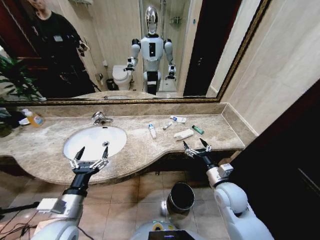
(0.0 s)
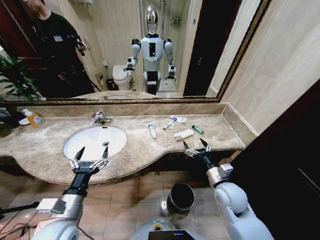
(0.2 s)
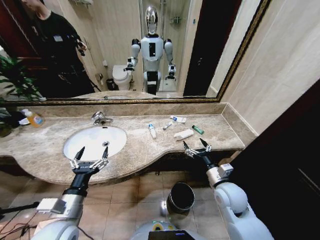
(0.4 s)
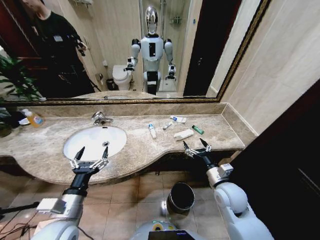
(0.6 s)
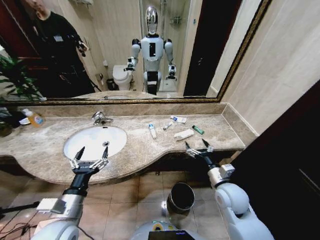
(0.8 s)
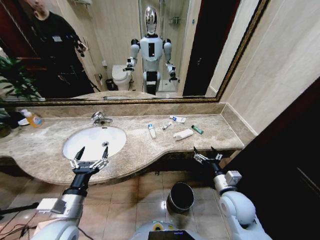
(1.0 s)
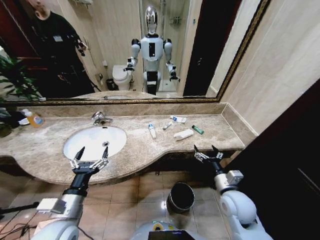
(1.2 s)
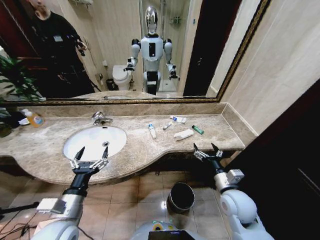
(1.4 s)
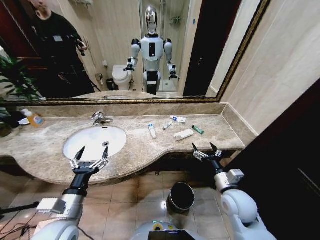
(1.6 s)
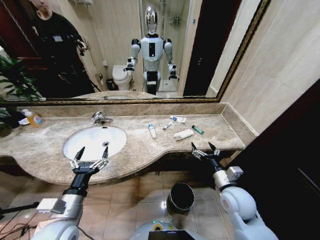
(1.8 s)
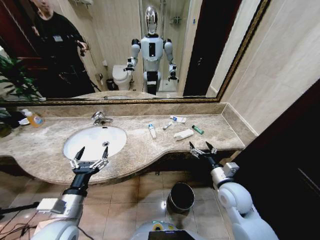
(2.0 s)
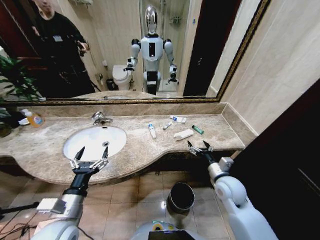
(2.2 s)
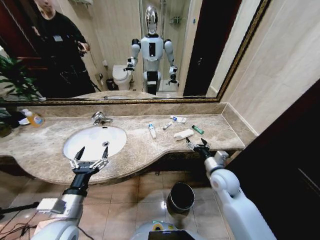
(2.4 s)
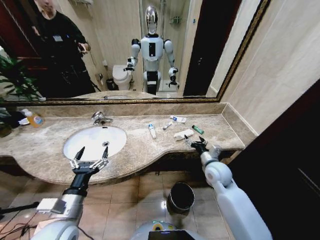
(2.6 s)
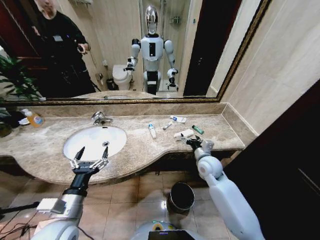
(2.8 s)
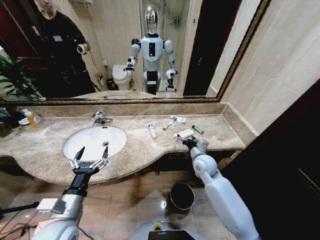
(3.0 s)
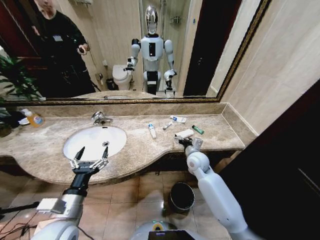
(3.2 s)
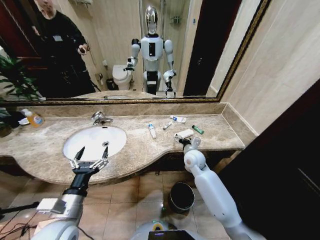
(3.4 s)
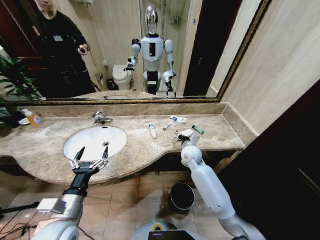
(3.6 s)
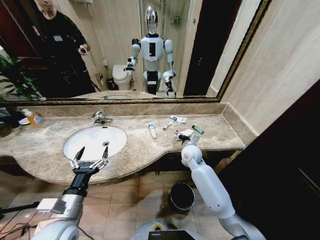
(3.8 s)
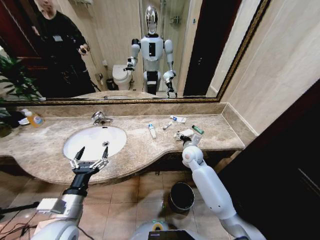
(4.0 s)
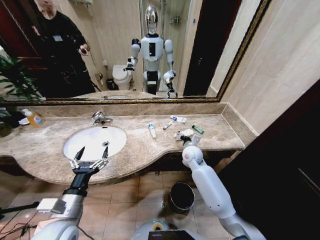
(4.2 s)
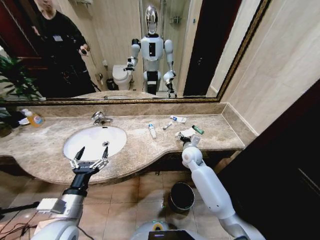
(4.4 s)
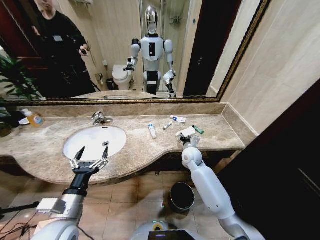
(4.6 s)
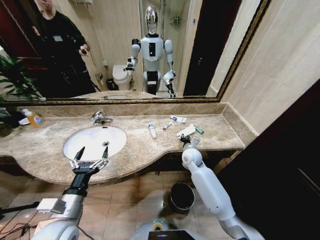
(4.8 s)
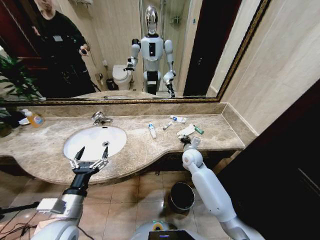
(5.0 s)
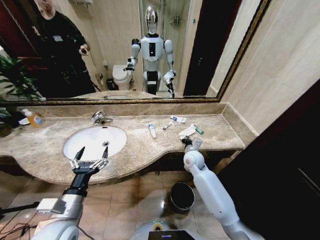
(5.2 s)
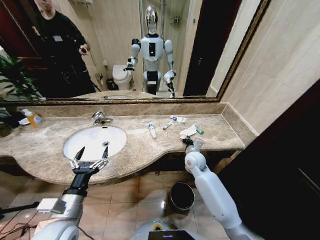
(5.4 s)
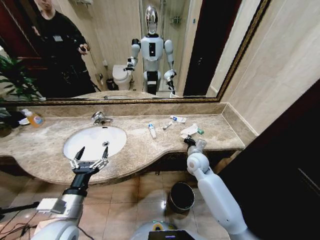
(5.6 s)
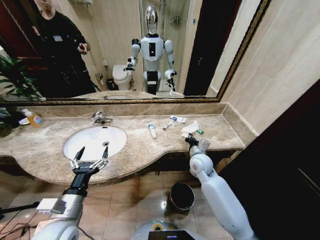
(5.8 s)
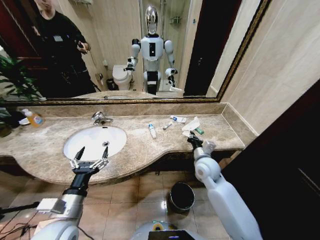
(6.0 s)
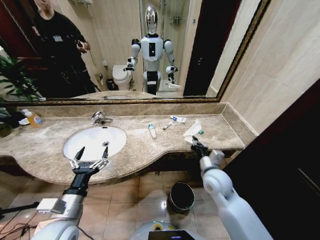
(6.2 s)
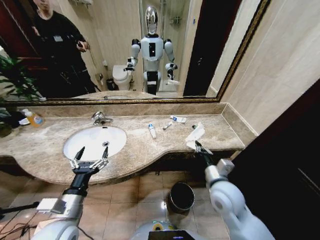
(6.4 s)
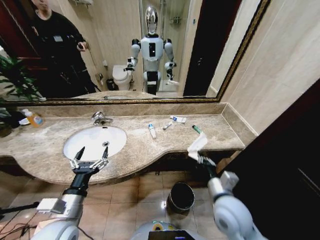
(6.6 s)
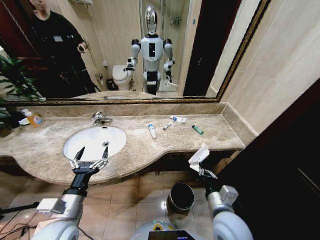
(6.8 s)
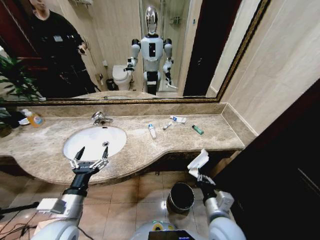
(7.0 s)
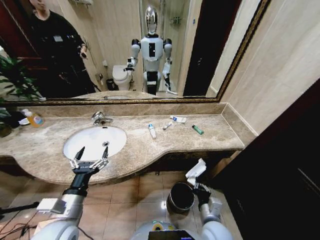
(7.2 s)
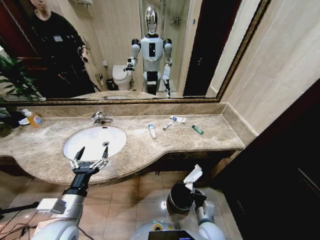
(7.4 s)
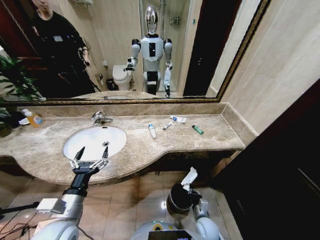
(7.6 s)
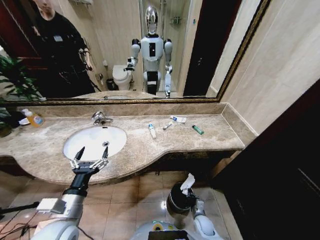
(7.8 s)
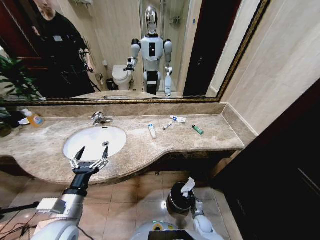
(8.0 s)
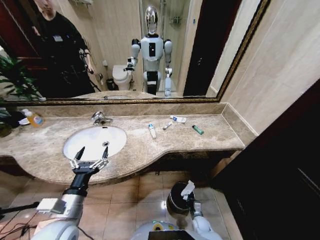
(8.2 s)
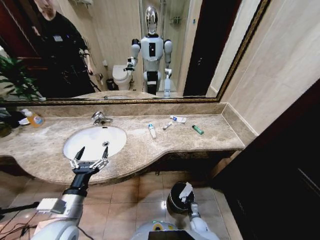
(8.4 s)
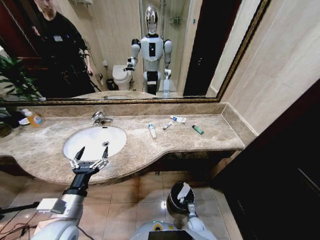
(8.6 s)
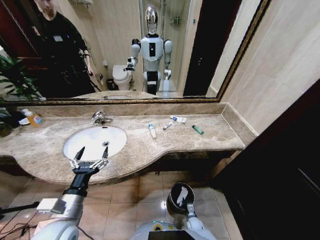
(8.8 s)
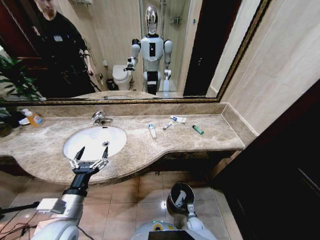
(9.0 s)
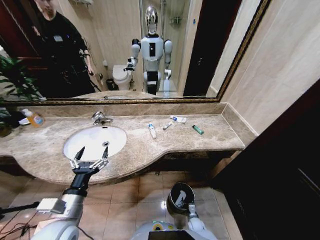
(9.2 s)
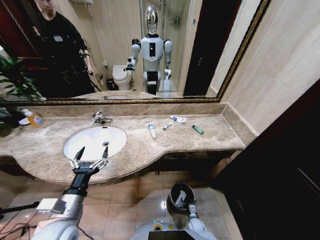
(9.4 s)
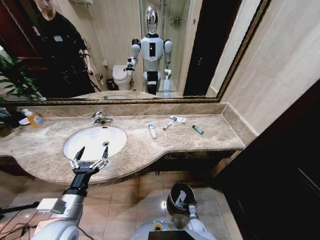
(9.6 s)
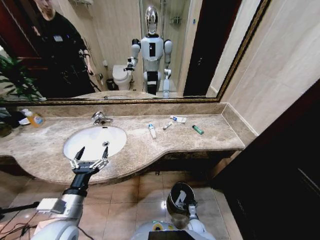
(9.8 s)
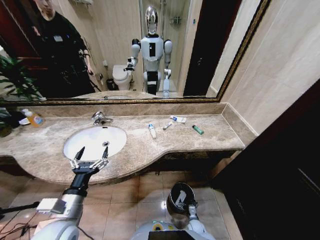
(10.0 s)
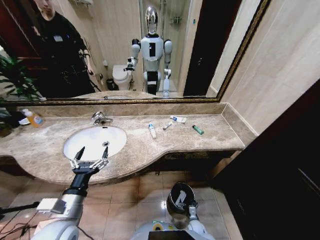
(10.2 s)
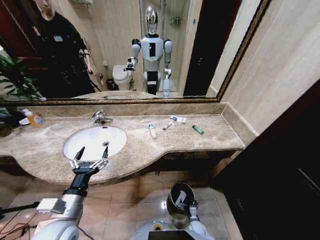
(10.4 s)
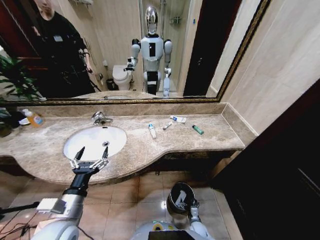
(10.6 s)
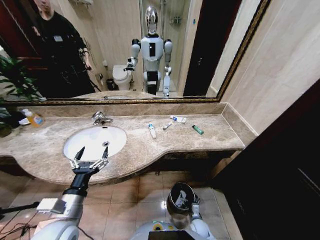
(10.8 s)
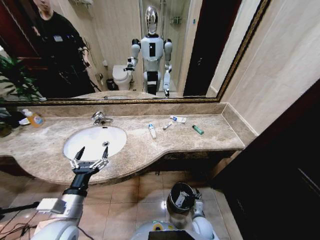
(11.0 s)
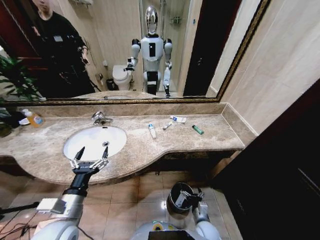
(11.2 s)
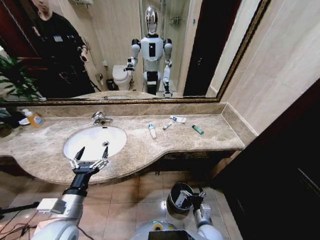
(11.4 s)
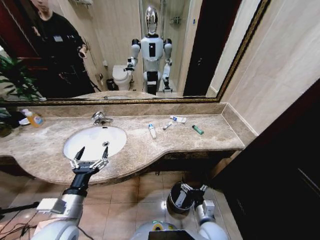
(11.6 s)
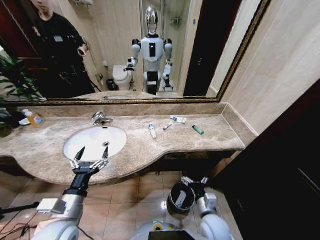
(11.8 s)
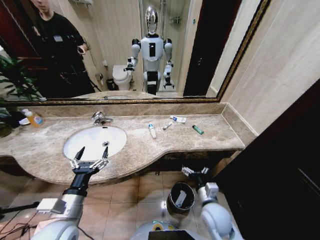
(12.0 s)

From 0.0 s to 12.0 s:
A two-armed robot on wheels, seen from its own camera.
Task of the whole recording: Pick up the trash from the sink and place it in the trash bin.
From 1.6 s to 3.0 s: The right gripper shifts roughly 15 cm forward.
From 3.0 s to 4.4 s: The right gripper goes roughly 5 cm forward.
From 4.4 s to 6.0 s: The right gripper is displaced backward by about 10 cm, and closes up.
From 6.0 s to 7.6 s: The right gripper shifts approximately 30 cm downward and backward.
From 7.6 s to 9.0 s: The right gripper moves downward, roughly 20 cm.
From 10.4 s to 12.0 s: The right gripper heads upward, covering roughly 35 cm.

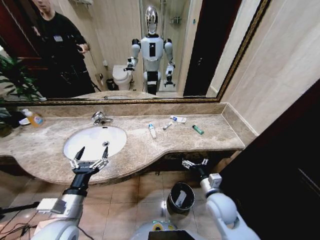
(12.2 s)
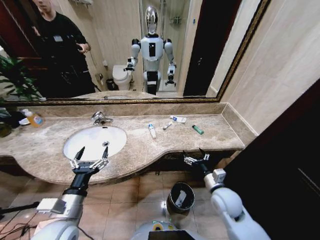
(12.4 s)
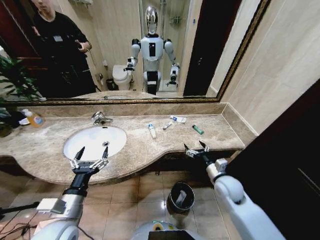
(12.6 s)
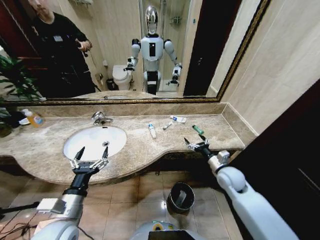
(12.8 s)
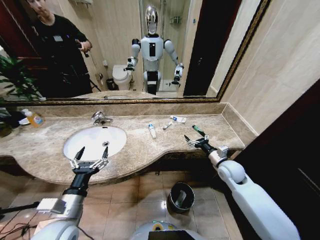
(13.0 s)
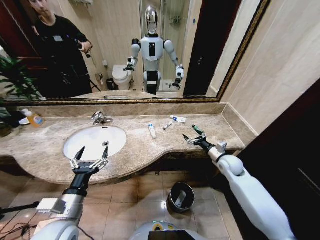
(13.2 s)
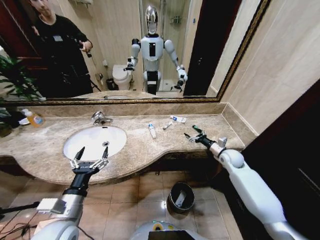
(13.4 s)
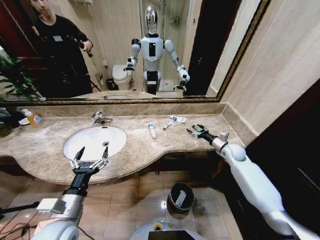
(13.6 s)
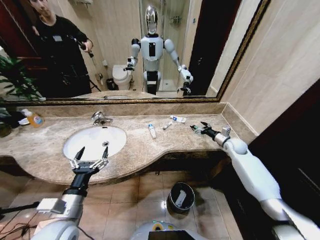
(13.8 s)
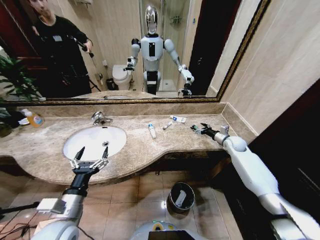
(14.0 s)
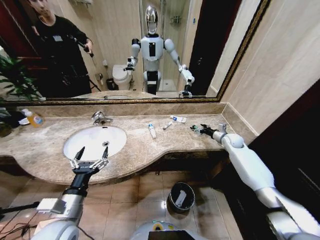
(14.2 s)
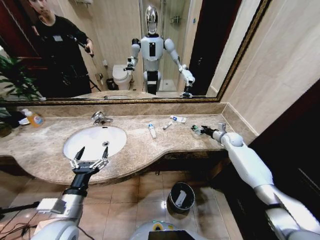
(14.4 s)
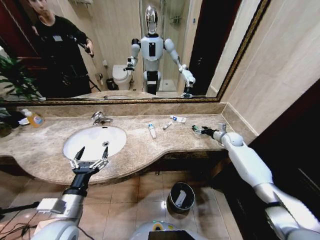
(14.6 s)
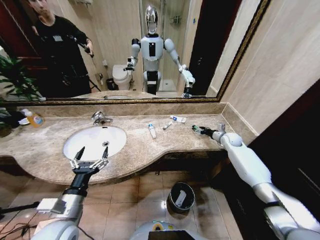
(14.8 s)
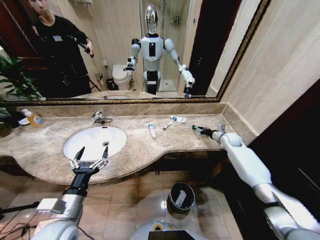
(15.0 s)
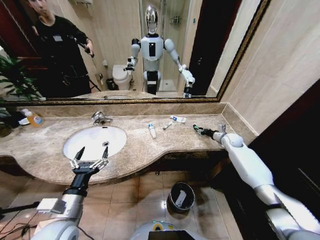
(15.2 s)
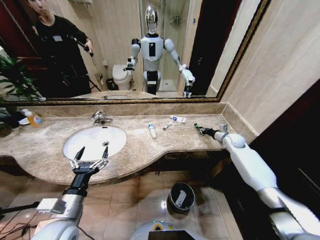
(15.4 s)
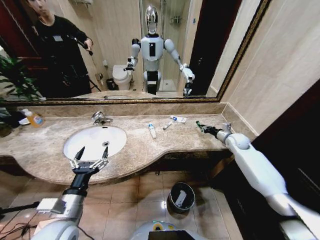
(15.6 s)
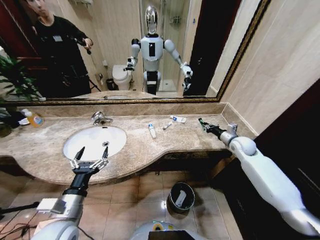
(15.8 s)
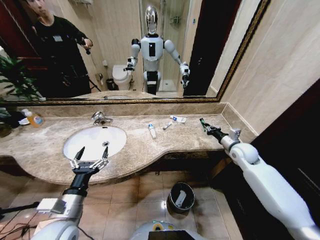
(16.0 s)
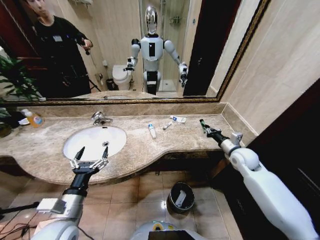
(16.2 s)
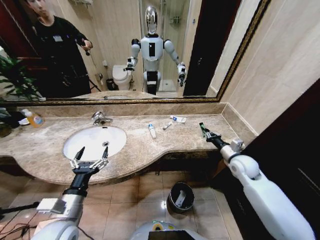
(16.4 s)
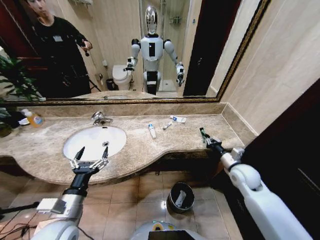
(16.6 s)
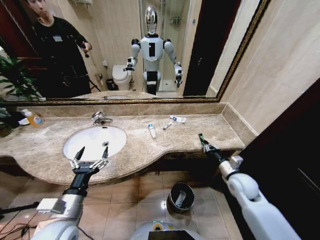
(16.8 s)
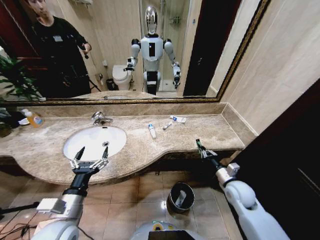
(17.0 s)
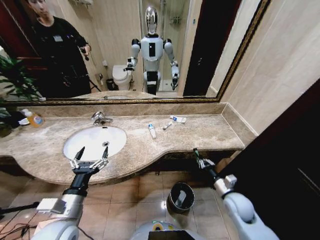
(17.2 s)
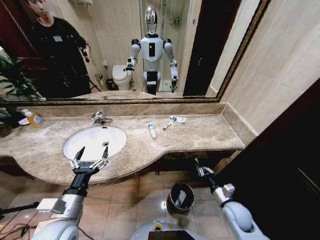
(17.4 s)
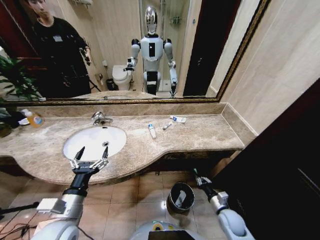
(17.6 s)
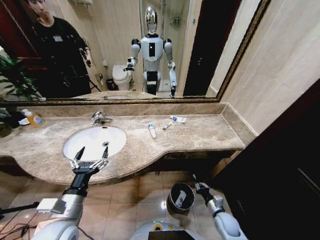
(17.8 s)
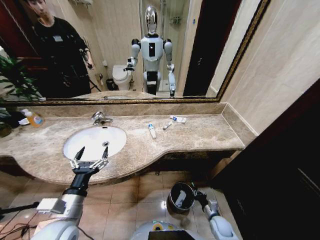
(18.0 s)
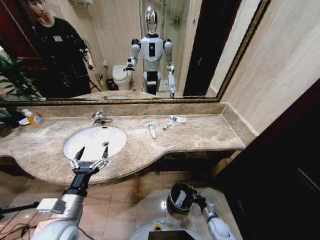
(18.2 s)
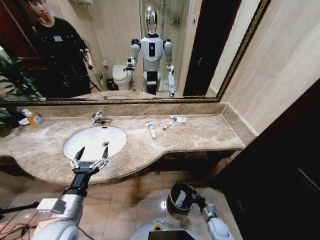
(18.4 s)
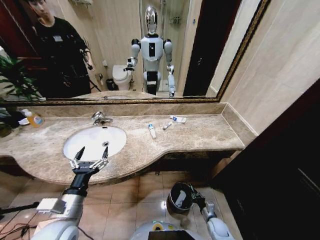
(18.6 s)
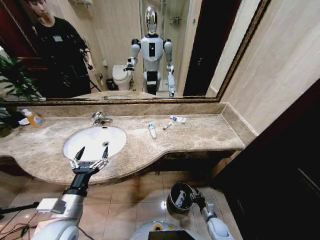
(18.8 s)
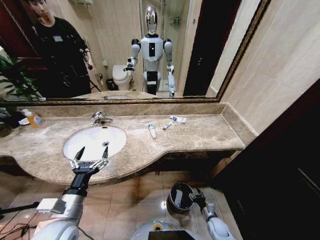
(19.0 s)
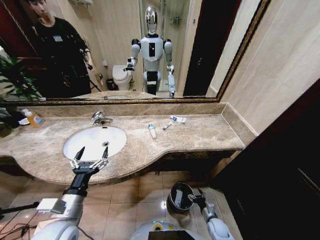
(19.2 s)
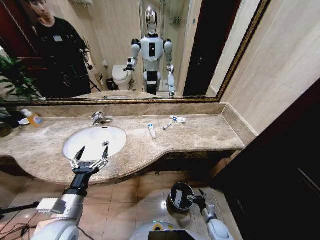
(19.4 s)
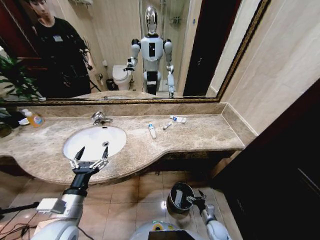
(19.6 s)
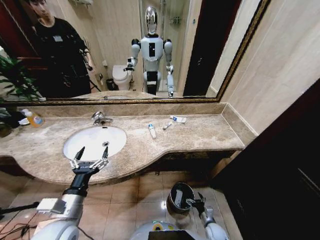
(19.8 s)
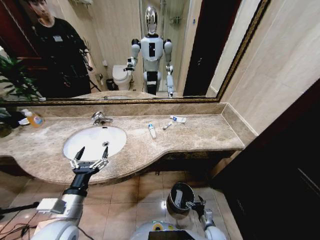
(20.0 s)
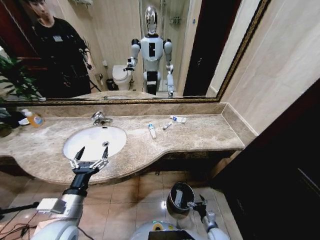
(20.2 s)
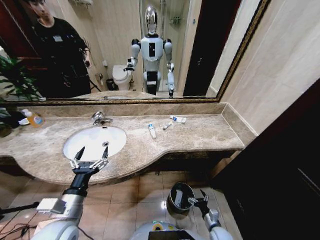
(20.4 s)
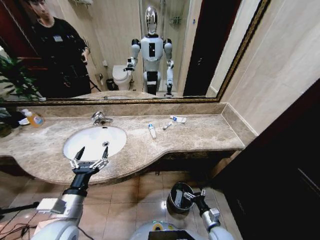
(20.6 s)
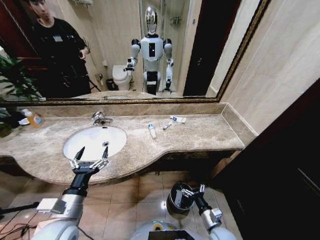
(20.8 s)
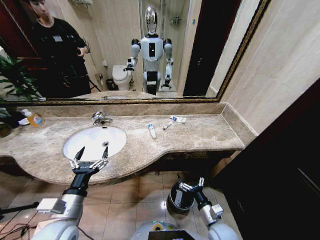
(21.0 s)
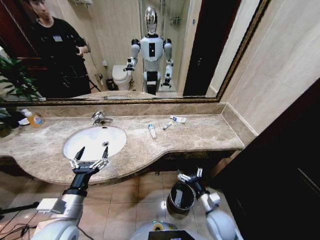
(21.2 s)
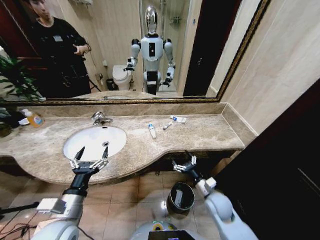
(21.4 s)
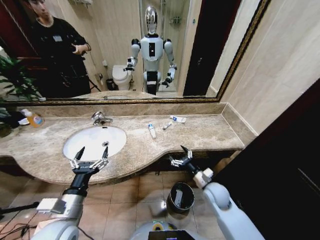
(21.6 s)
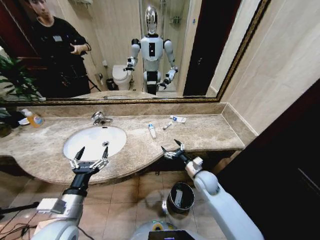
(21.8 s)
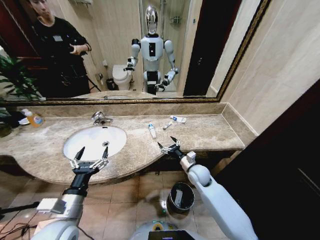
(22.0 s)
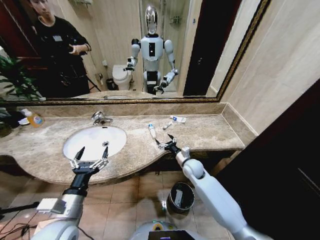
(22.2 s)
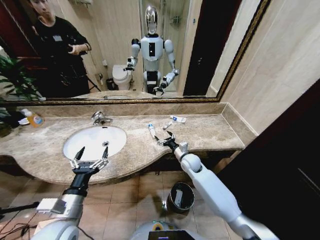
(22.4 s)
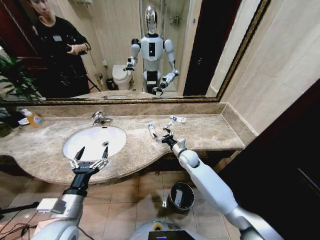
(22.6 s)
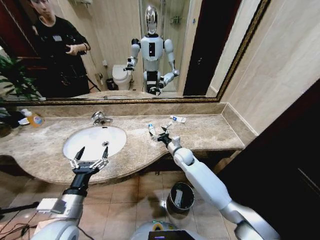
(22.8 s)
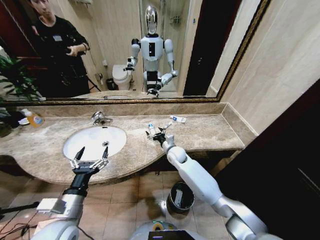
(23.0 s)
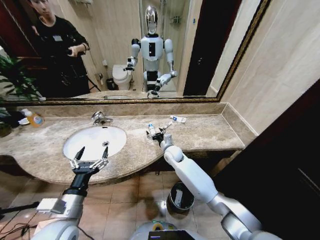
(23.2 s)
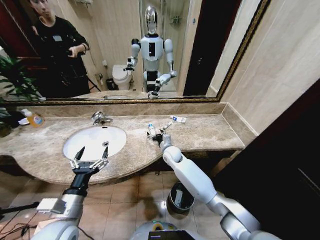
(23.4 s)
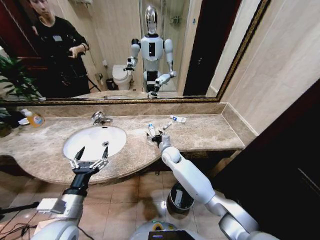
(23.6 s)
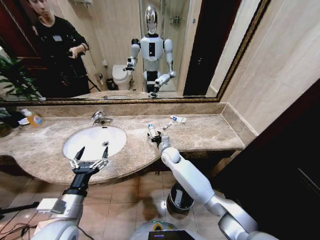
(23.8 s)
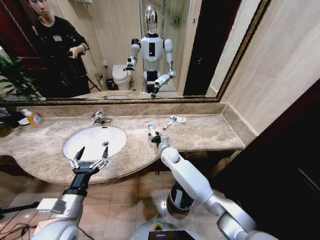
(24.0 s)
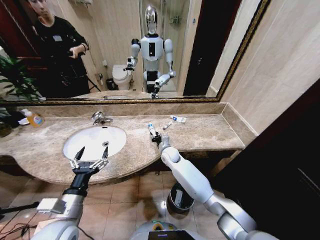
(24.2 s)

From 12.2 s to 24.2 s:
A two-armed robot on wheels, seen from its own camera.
Task of the whole recording: Pick up the trash from the sink and place it in the trash bin.
From 12.2 s to 13.8 s: The right gripper is displaced forward and to the right by roughly 30 cm.
From 13.8 s to 15.2 s: The right gripper closes its fingers.
From 15.2 s to 16.6 s: The right gripper goes approximately 20 cm backward.
From 16.6 s to 18.2 s: The right gripper is displaced downward and backward by approximately 35 cm.
From 18.2 s to 19.8 s: The right gripper opens its fingers.
From 19.8 s to 21.2 s: The right gripper shifts about 25 cm upward.
From 21.2 s to 22.6 s: The right gripper moves forward, about 25 cm.
From 22.6 s to 24.2 s: The right gripper moves to the left, some 10 cm, and closes.
